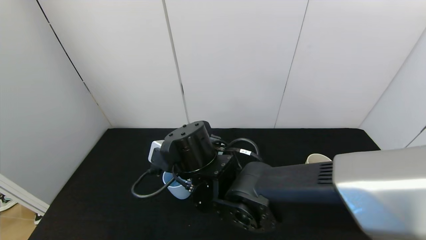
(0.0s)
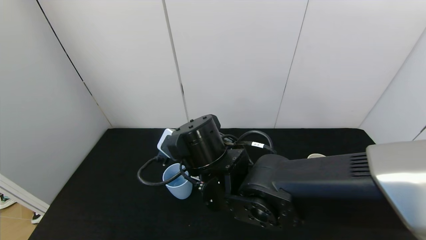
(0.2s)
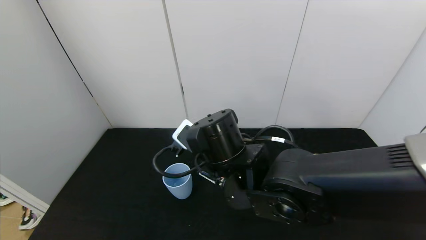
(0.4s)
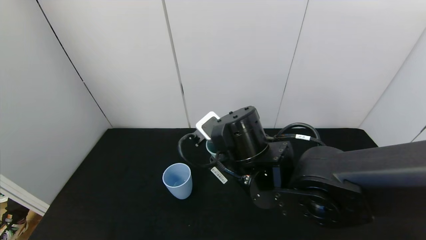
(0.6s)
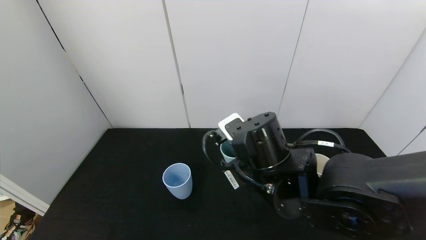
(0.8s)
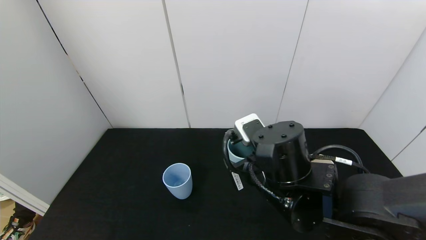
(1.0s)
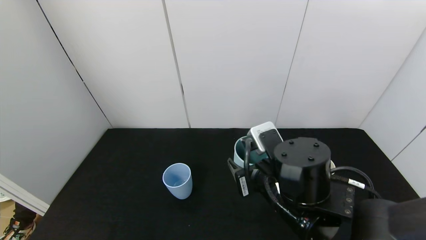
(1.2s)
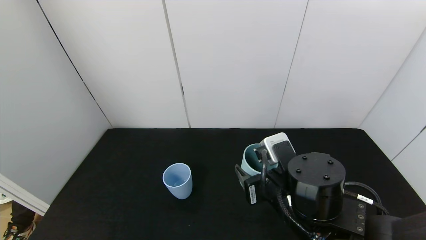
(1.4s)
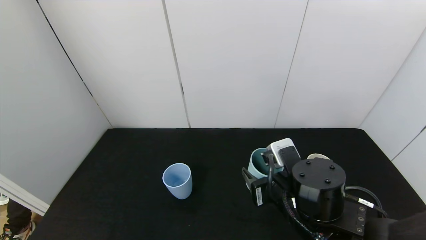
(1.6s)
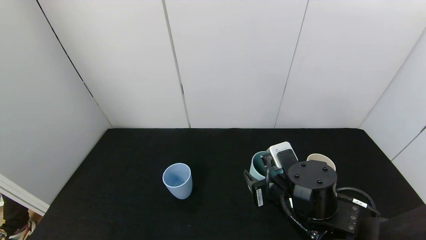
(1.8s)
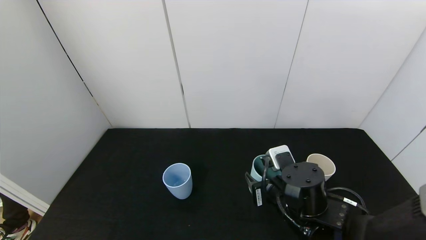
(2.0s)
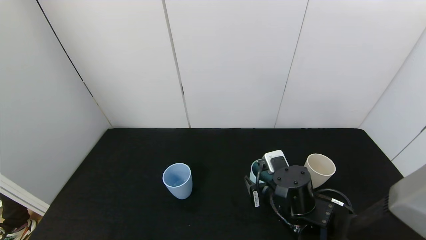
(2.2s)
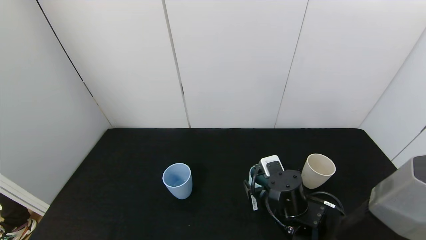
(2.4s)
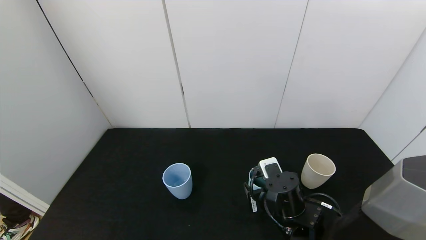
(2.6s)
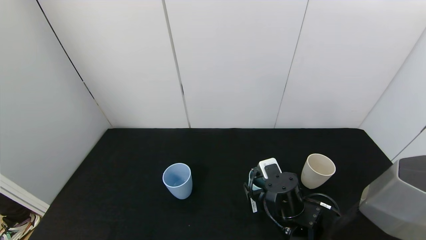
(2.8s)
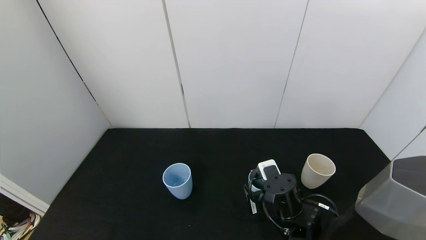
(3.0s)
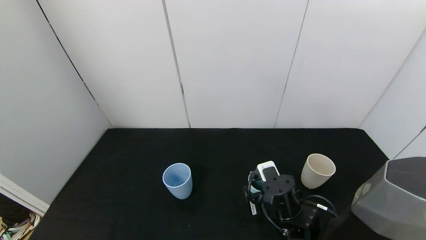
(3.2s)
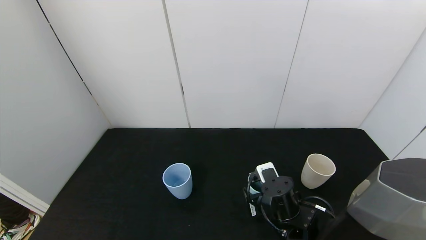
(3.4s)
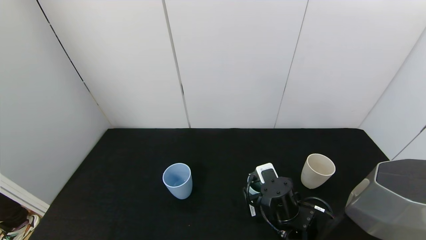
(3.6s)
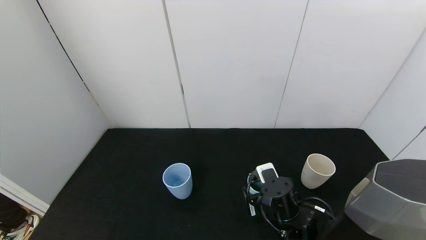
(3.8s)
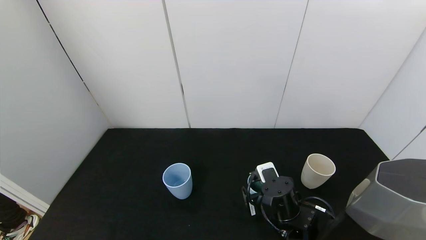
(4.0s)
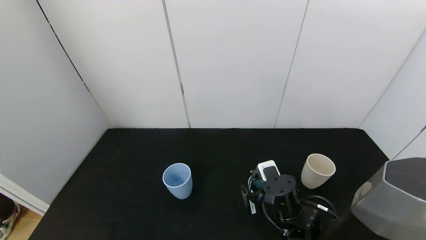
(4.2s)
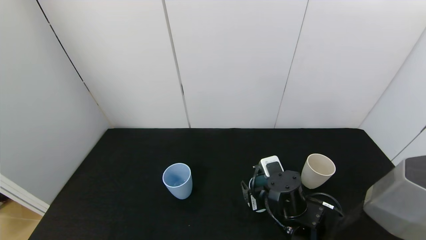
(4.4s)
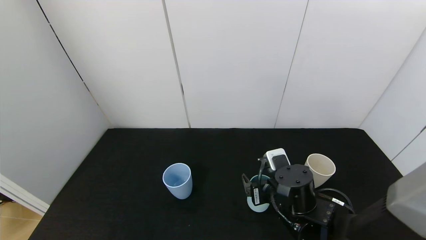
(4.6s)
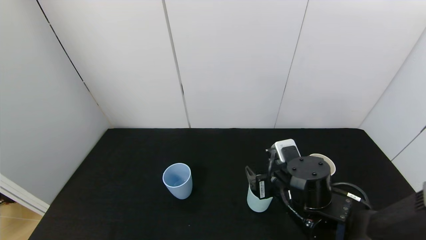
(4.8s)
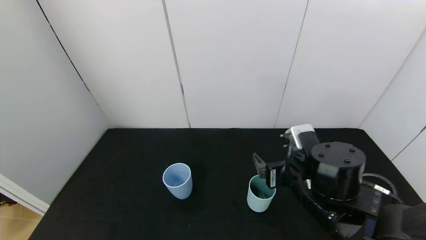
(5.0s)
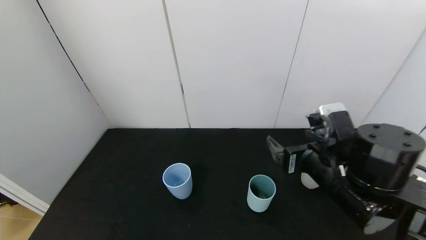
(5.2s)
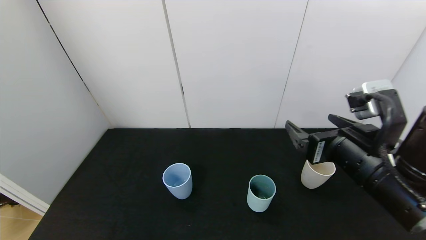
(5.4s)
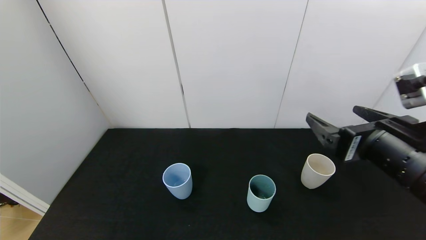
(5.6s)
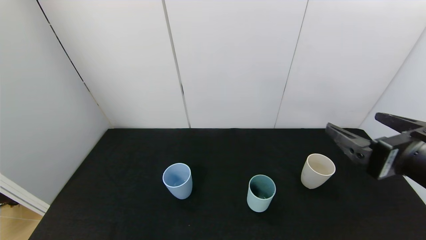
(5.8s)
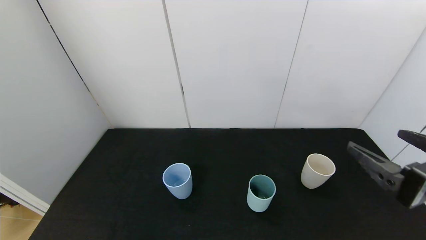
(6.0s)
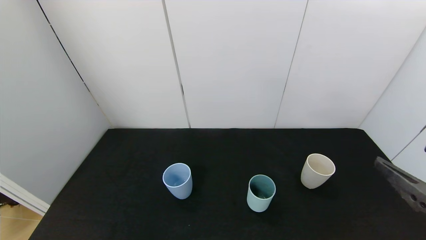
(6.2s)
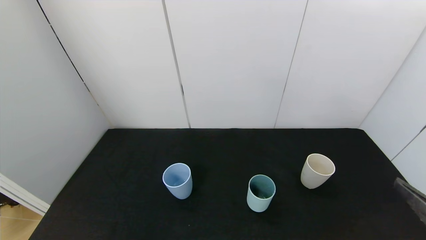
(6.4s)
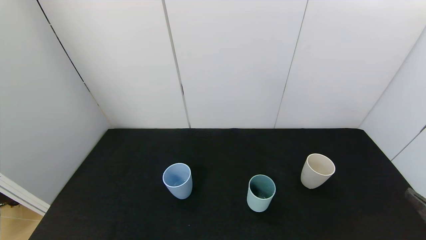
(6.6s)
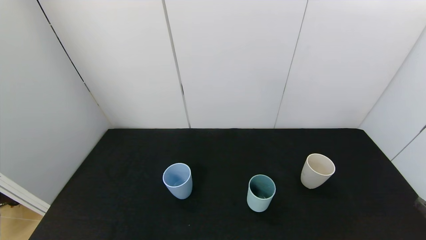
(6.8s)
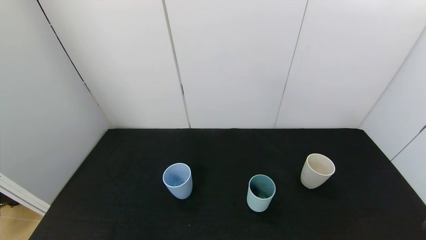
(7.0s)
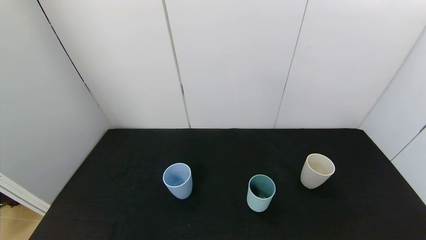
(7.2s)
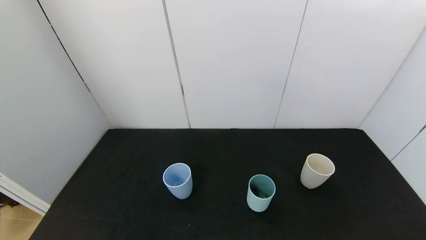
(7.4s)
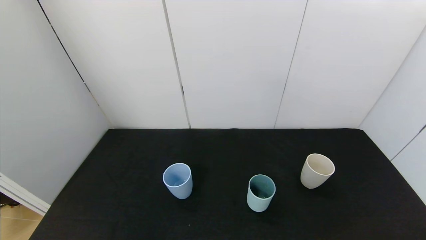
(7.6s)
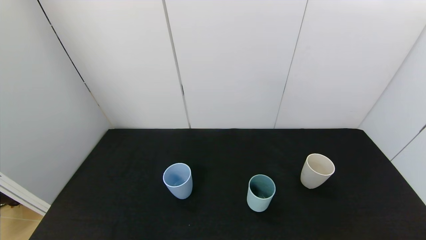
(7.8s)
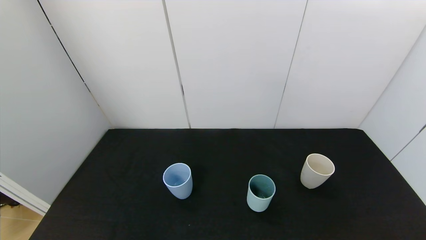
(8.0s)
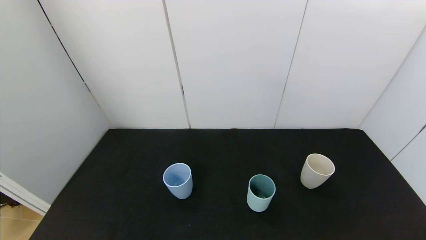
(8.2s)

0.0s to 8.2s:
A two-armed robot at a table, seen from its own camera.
Task of the whole recording: use the gripper to pour the water into the other two cups on black table.
Step, 0.2s to 4.6s: Place the green cup with the right gripper.
0.0s to 1.6s: The right gripper goes some 15 cm to the right.
1.6s to 3.2s: The right gripper heads downward, covering some 10 cm.
3.2s to 5.0s: The right gripper goes some 10 cm upward, and opens up.
5.0s to 6.6s: The right gripper travels to the right and backward by approximately 25 cm.

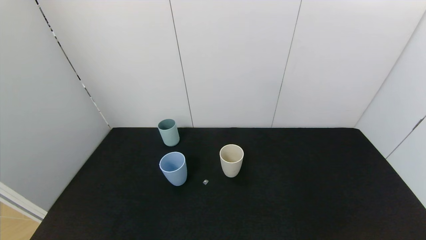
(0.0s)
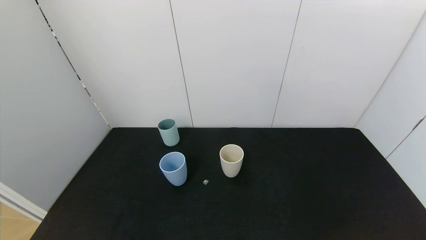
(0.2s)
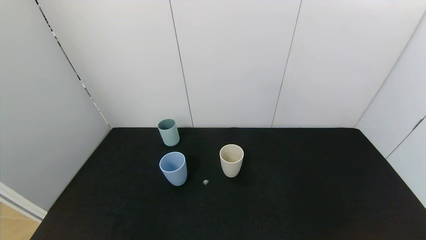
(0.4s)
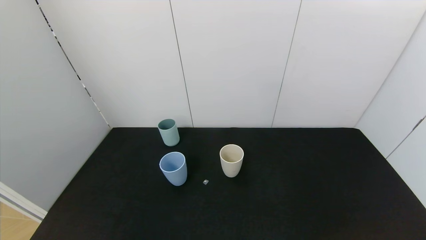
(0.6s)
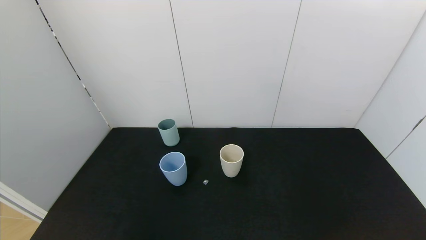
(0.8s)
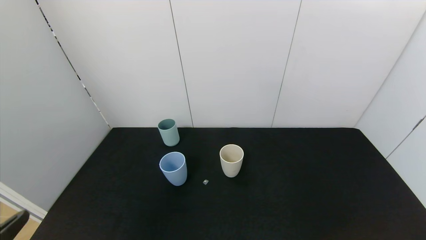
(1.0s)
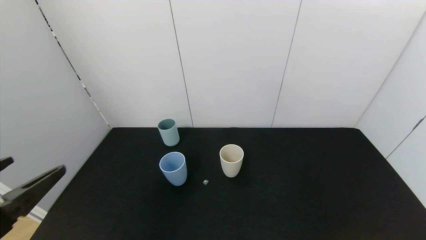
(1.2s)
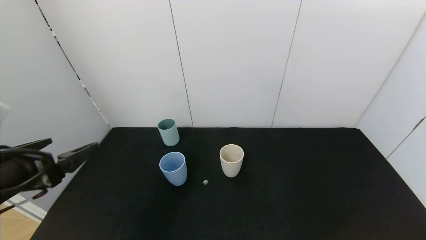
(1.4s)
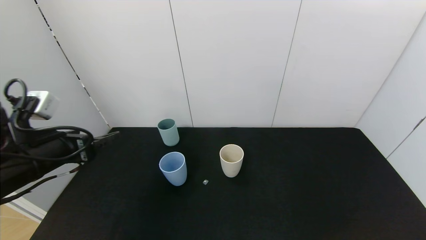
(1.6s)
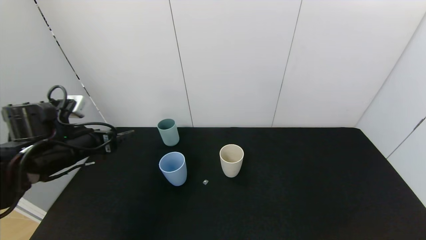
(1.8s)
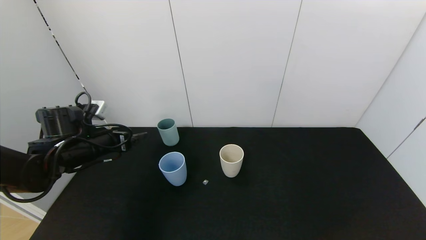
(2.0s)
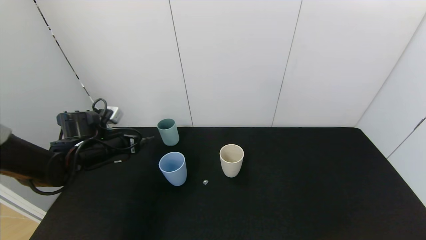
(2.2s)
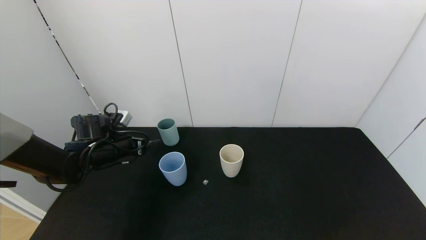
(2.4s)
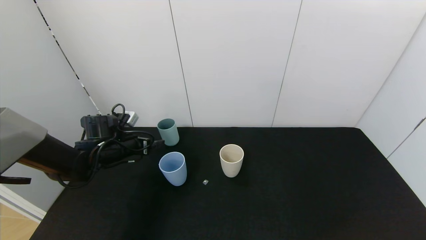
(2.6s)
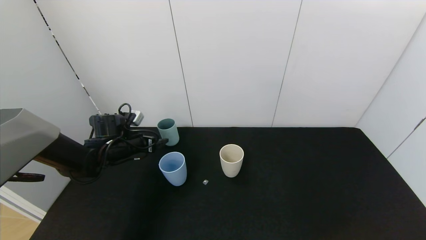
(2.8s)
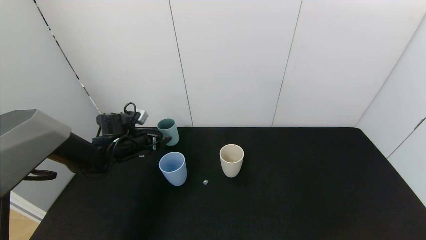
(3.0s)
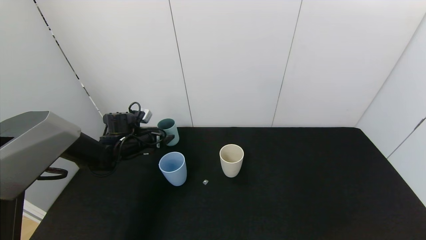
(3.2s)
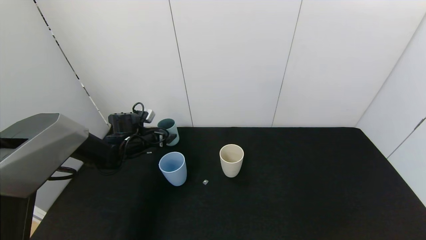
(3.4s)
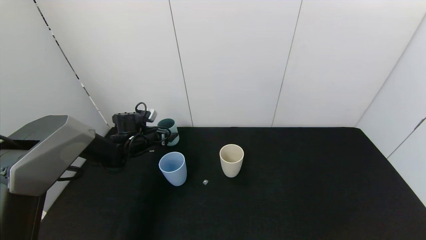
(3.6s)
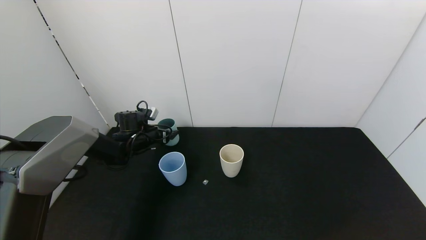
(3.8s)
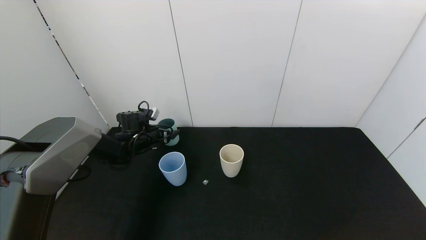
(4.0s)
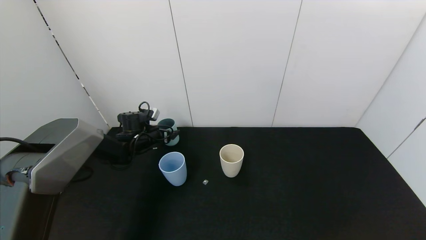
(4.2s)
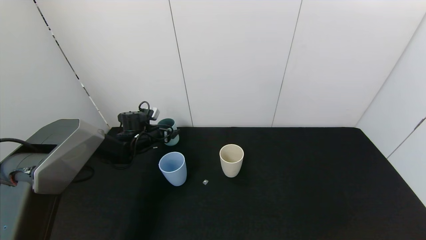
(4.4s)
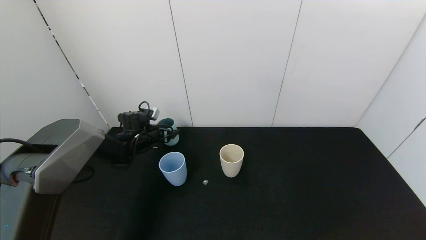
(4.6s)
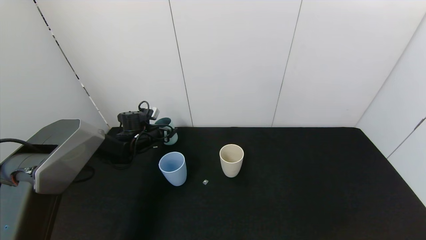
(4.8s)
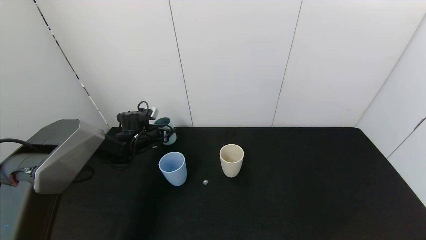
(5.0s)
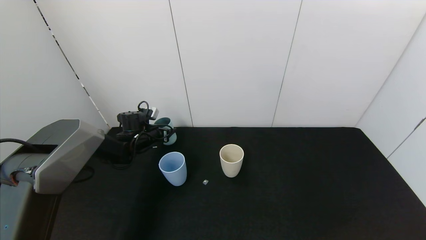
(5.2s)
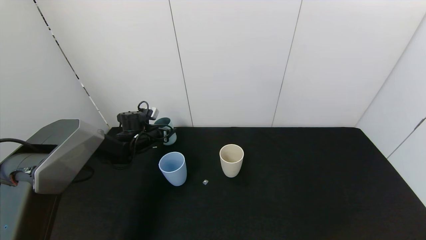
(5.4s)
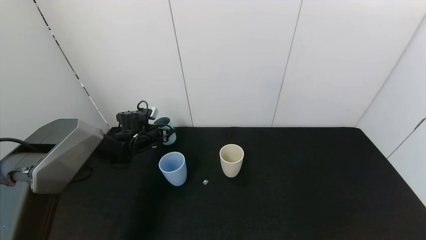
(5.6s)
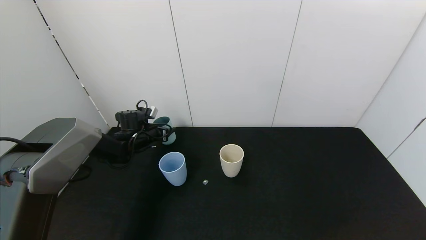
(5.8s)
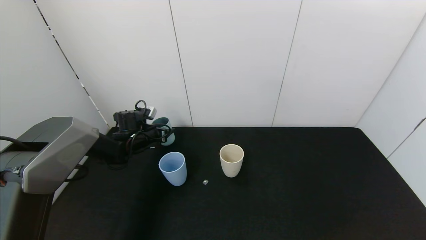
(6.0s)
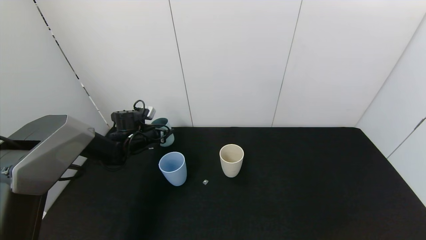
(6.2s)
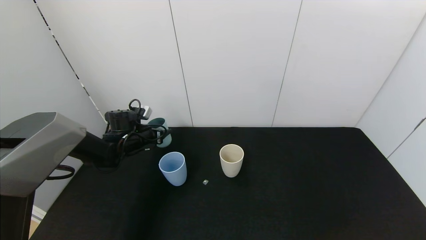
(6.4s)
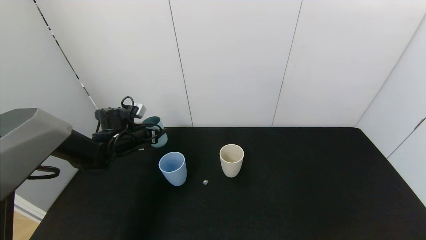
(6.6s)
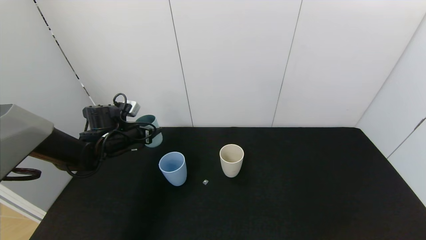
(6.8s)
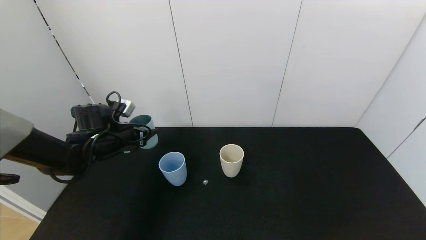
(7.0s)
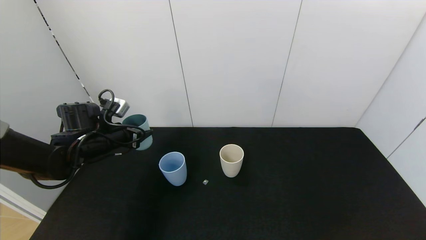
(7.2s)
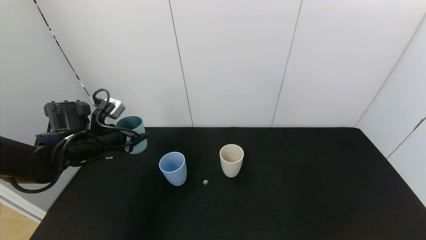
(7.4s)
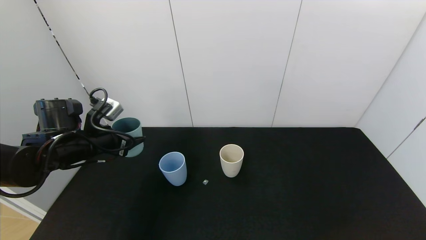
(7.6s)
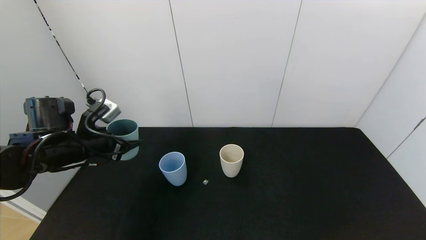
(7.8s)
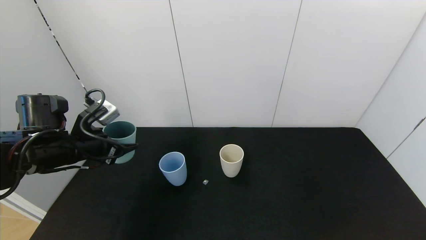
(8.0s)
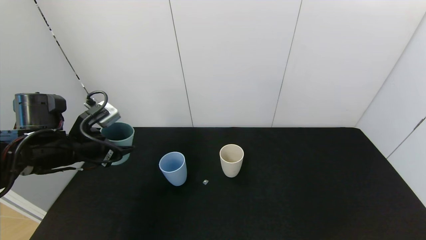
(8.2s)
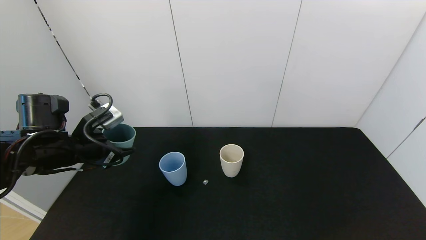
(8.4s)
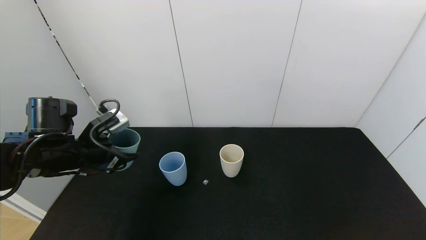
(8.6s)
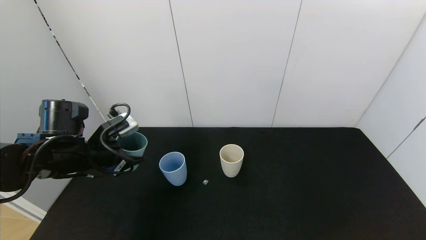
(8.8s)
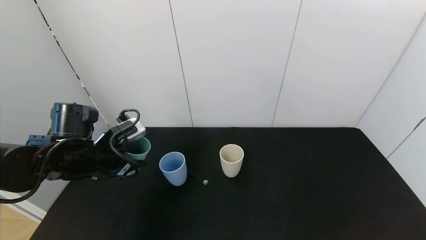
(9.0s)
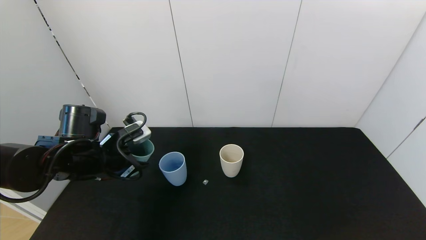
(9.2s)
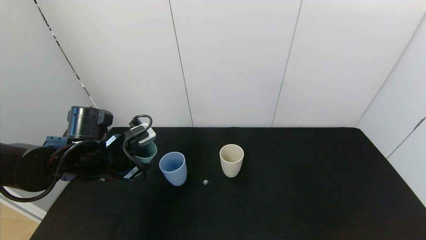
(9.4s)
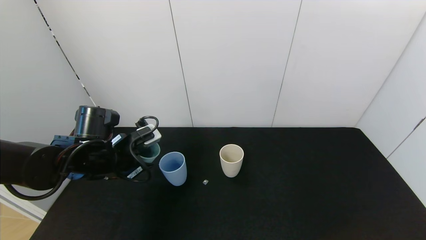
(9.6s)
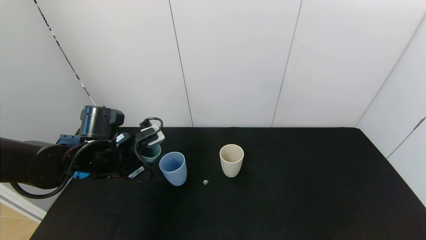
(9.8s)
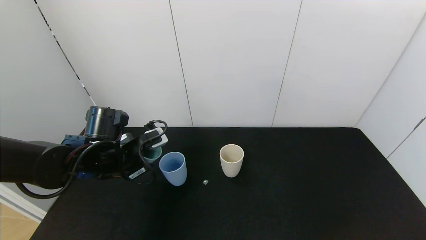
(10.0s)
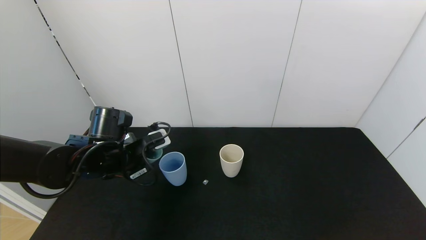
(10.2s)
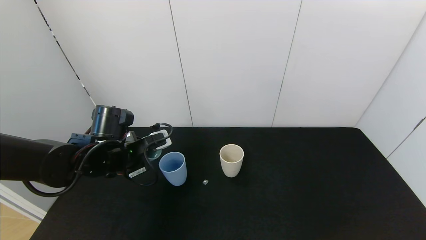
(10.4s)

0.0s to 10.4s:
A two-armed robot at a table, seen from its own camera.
Task of the whole recording: use the gripper to pour the water into the other two cups on black table.
Step, 0.0s to 5.0s: Grasp the green cup with the left gripper.
0.0s to 1.4s: The left gripper goes roughly 25 cm forward and upward.
1.4s to 3.0s: The left gripper travels forward and downward by roughly 30 cm.
3.0s to 4.4s: The left gripper travels forward by approximately 5 cm.
4.4s to 6.0s: The left gripper closes.
6.0s to 7.4s: The left gripper is displaced backward and upward by some 15 cm.
7.4s to 9.0s: The left gripper shifts by some 5 cm.
